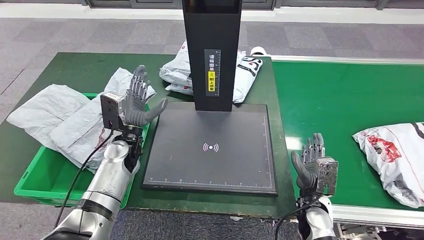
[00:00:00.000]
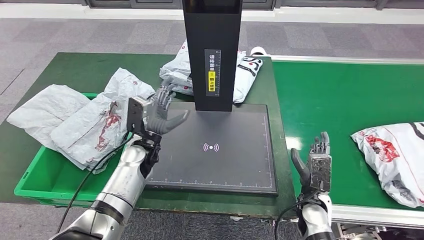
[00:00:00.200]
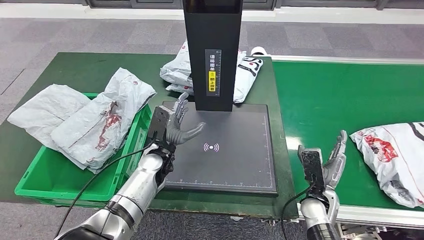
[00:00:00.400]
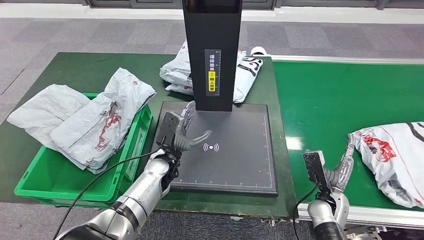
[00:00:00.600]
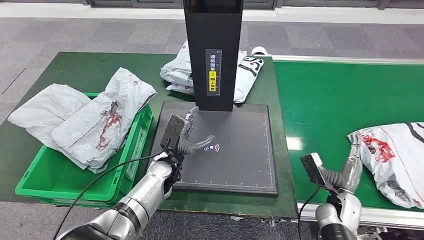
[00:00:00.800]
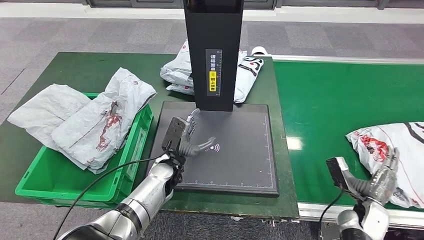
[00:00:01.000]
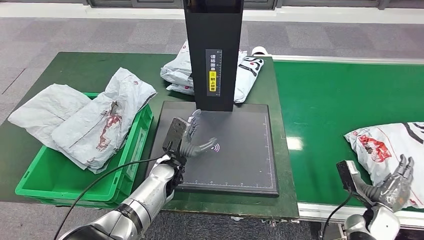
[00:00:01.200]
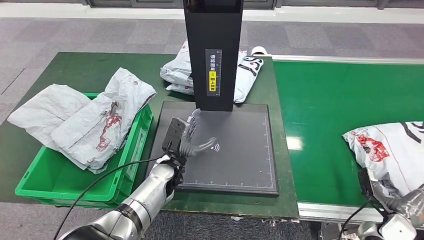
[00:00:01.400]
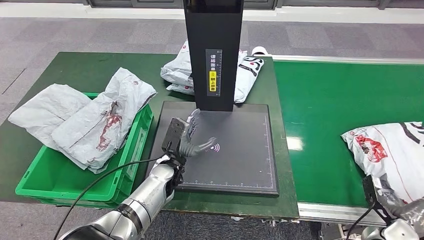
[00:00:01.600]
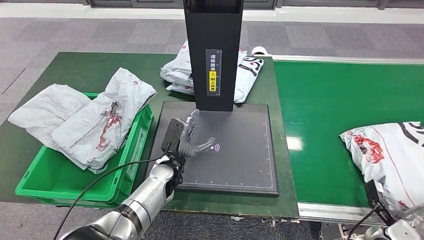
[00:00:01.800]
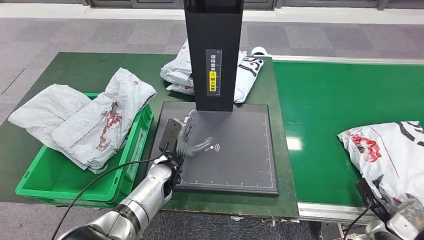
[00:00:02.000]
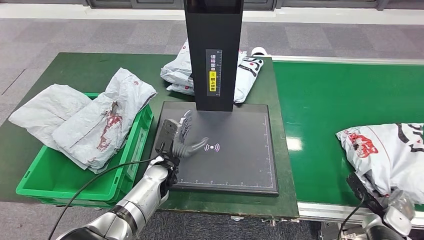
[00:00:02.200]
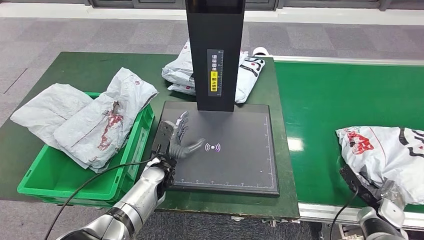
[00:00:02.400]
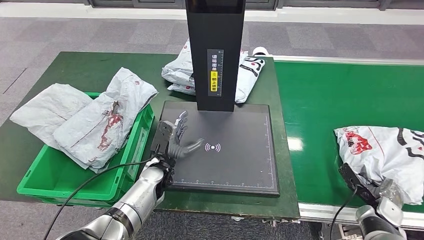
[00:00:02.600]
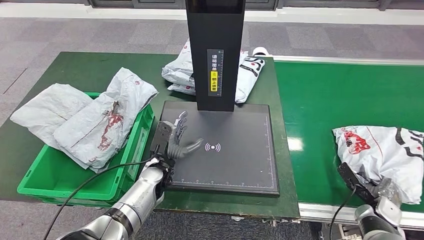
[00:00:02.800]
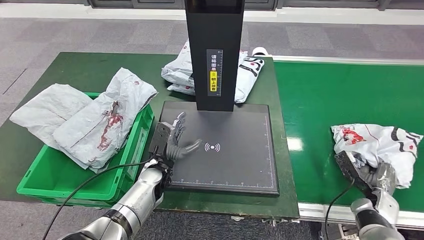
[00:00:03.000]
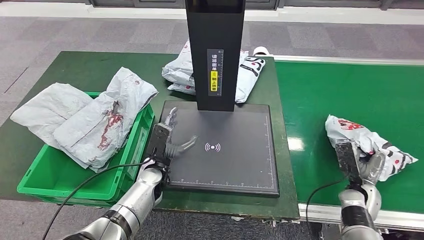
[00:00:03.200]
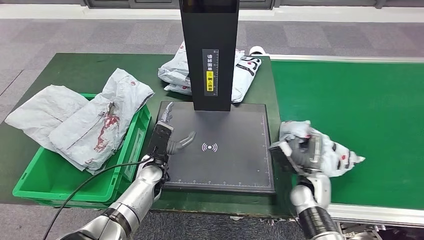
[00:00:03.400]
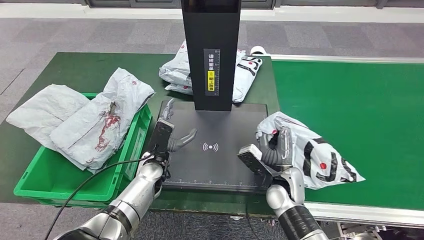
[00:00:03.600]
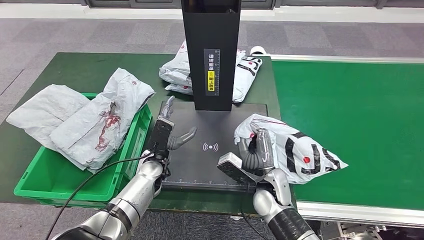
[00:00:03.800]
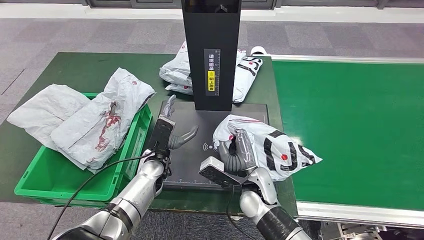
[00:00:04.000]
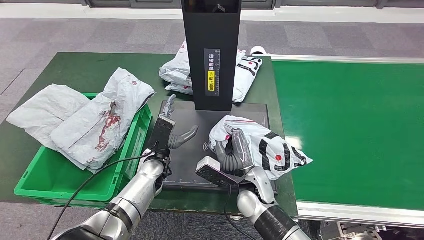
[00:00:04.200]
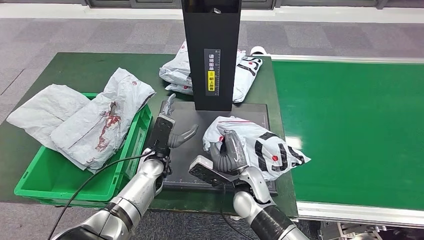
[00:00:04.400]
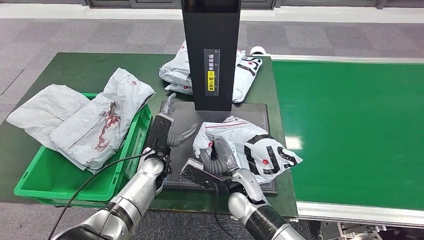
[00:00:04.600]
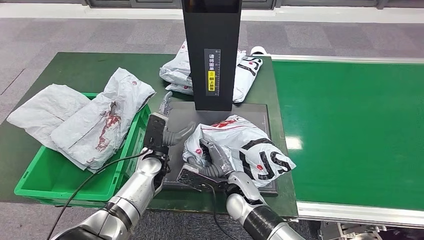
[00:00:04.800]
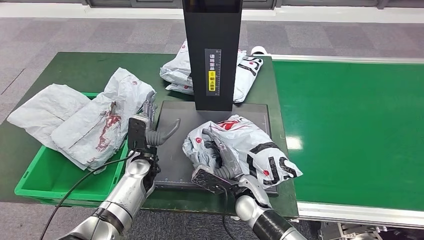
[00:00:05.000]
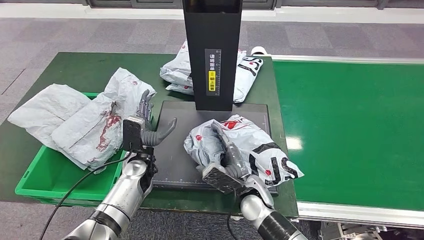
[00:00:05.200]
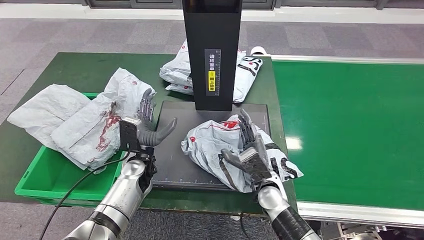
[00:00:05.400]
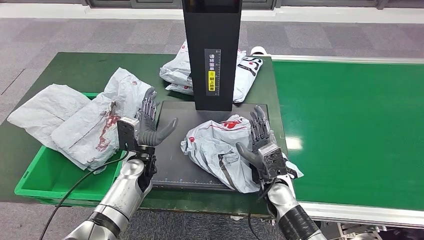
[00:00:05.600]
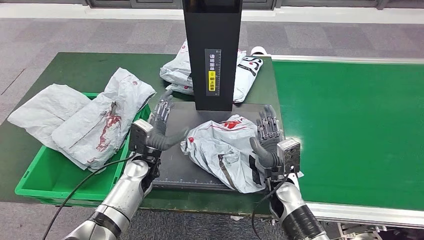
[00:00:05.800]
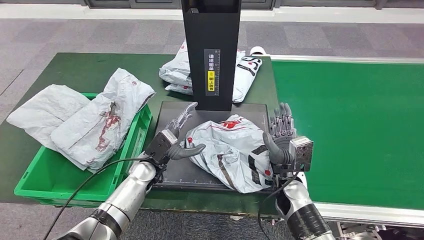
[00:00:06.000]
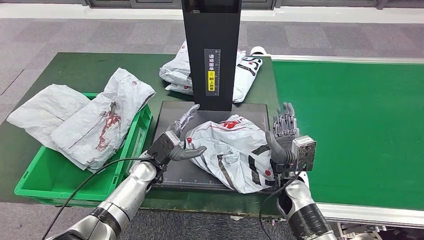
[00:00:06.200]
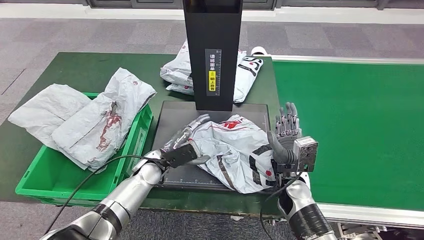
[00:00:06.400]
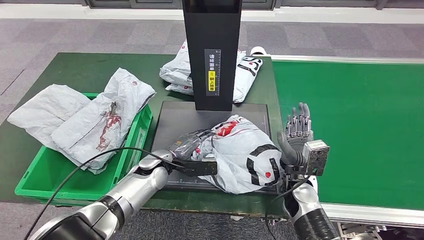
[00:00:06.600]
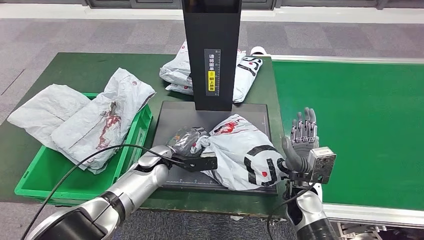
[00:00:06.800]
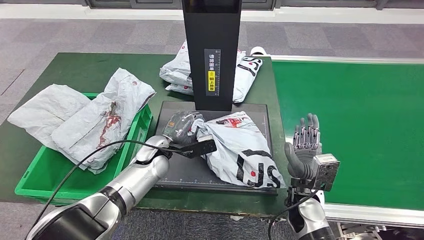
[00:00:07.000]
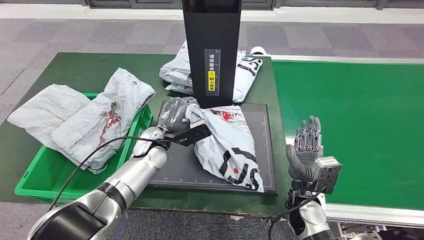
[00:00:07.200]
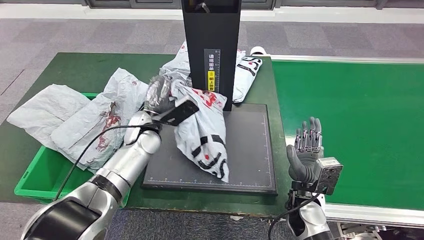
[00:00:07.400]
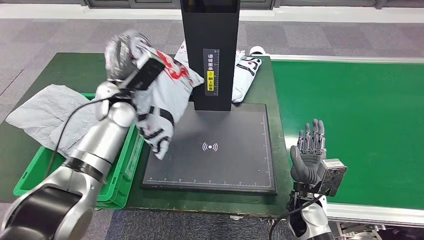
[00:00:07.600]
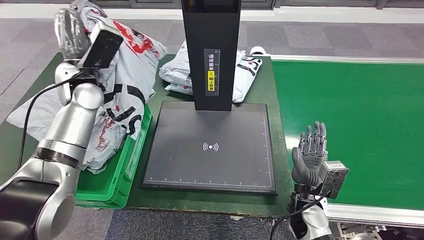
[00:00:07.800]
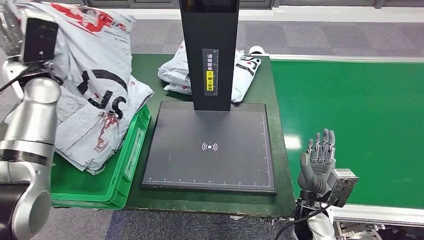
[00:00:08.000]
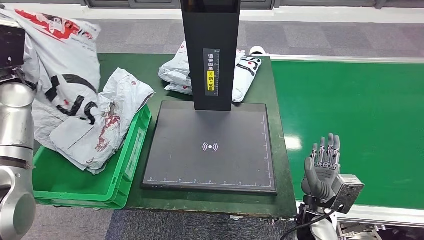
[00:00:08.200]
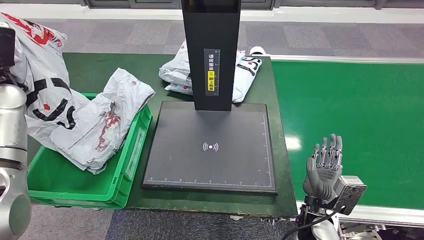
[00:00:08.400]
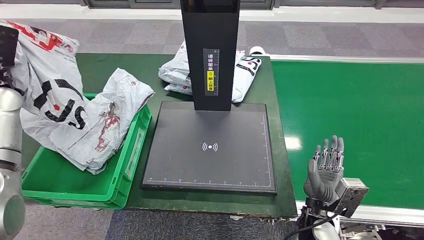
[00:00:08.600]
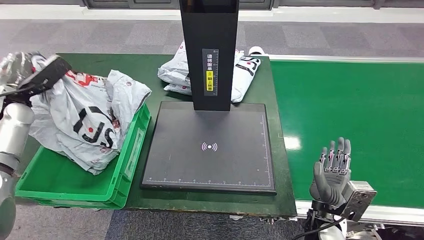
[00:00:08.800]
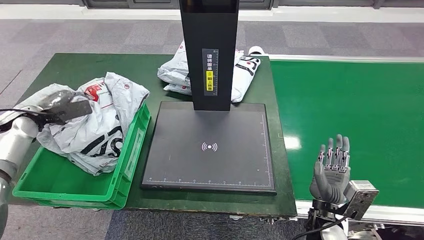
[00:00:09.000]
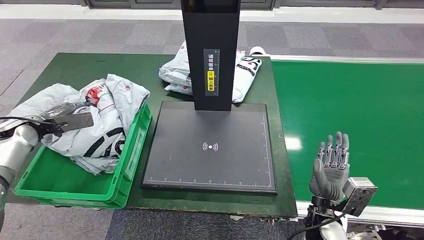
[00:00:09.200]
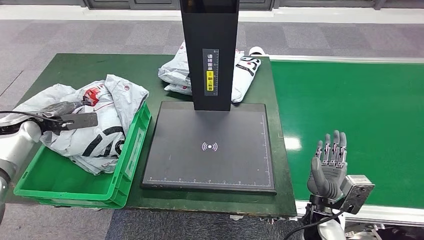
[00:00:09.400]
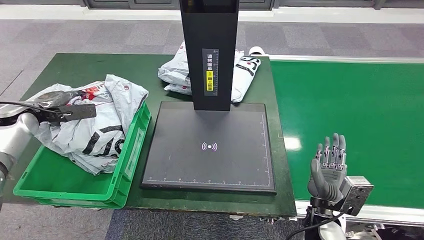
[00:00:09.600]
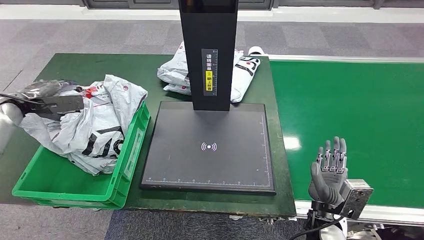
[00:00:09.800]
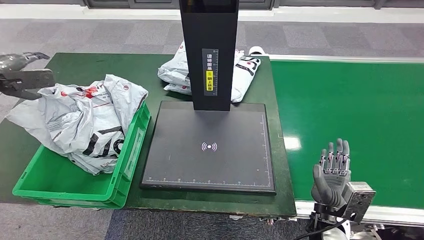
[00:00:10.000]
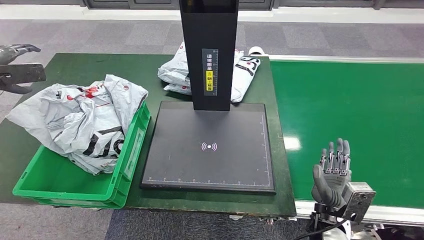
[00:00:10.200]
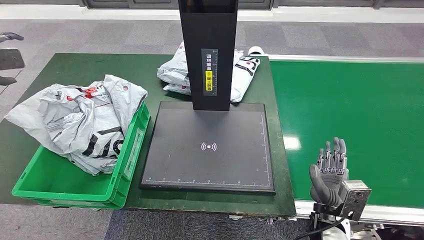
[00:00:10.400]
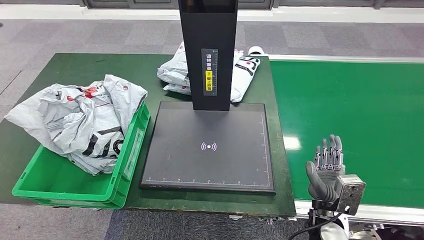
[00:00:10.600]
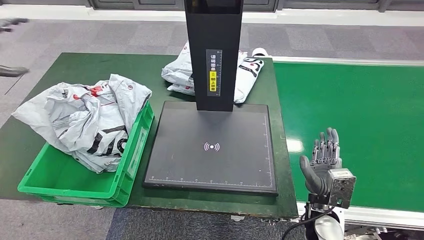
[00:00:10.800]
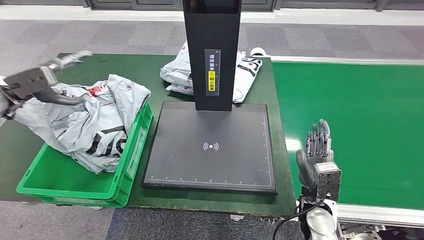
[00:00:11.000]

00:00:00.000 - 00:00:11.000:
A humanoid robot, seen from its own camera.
Step, 00:00:00.000 - 00:00:04.000: Pick up the parcel from the conveyor belt.
Step, 00:00:04.200 - 00:00:05.600: Place the parcel onto the inbound machine.
Step, 00:00:05.800 - 00:00:08.200: Pick up the parcel from the inbound machine.
Step, 00:00:08.400 - 00:00:11.000: Place the parcel into the delivery box.
00:00:01.600 - 00:00:03.200: The right hand moves forward and to the left, about 10 cm.
00:00:04.800 - 00:00:06.200: The right hand goes roughly 15 cm to the right.
